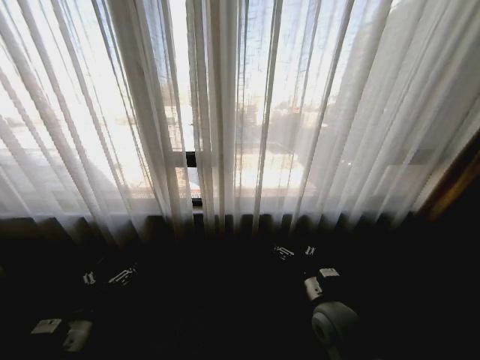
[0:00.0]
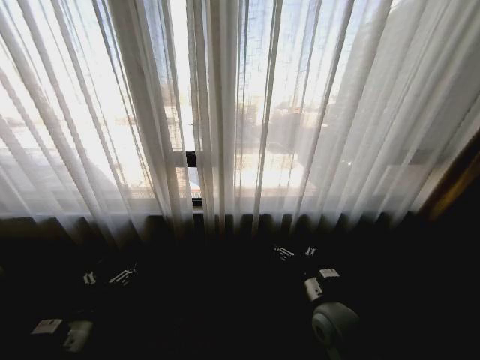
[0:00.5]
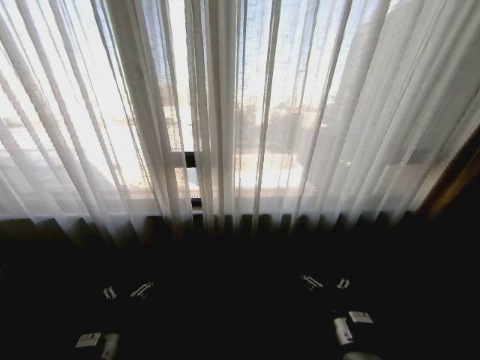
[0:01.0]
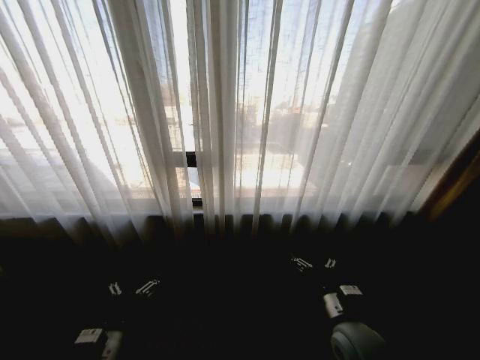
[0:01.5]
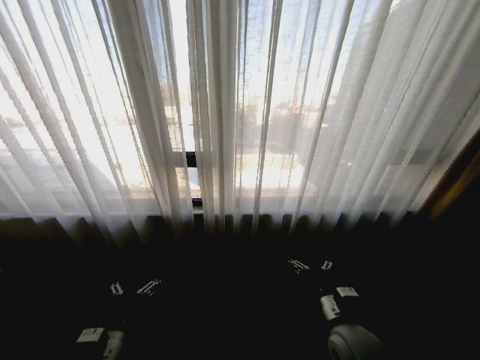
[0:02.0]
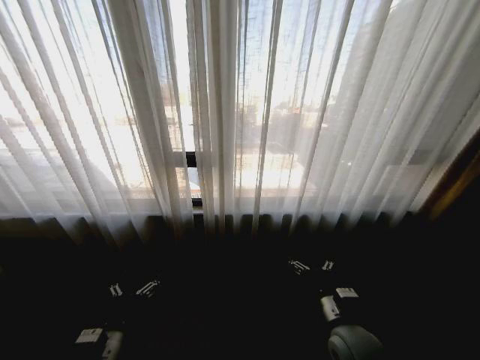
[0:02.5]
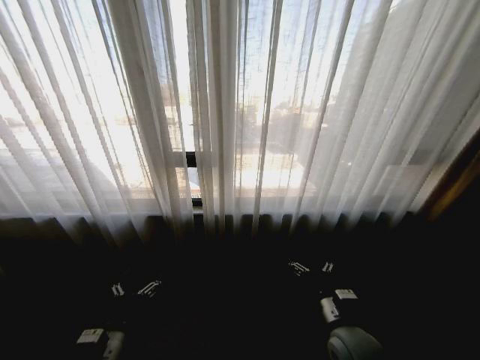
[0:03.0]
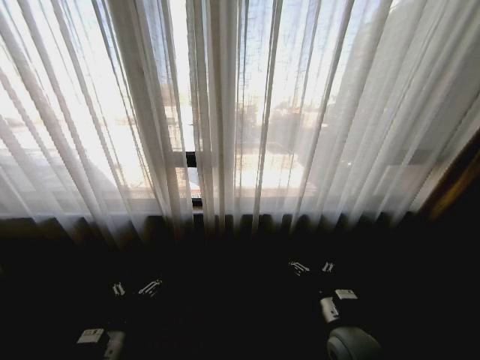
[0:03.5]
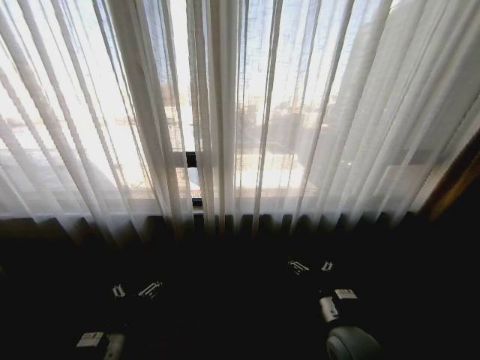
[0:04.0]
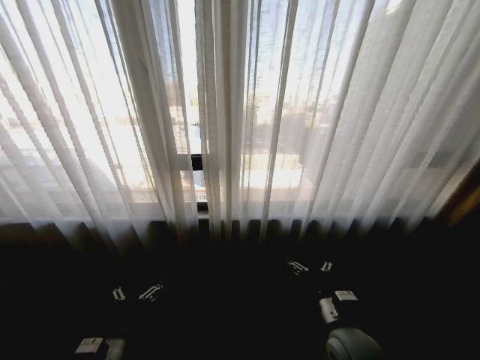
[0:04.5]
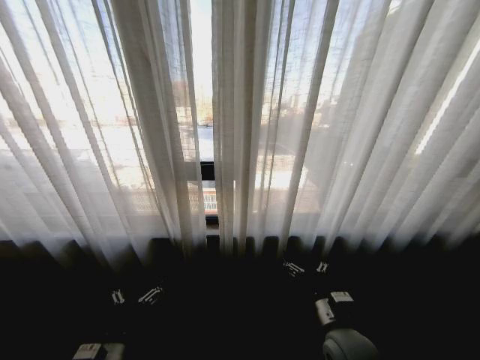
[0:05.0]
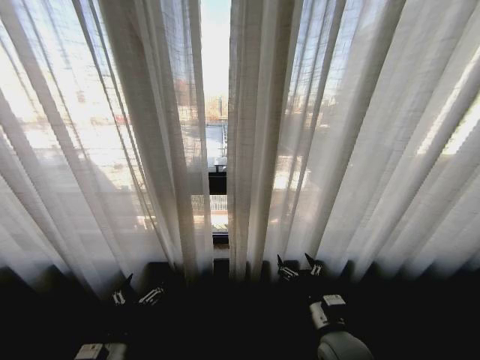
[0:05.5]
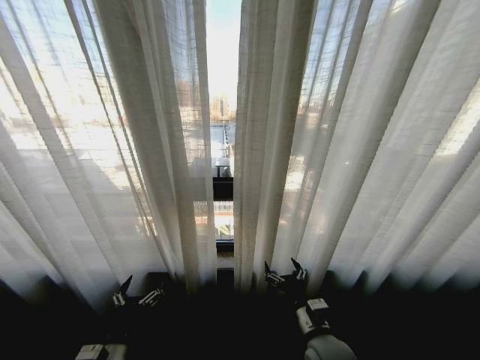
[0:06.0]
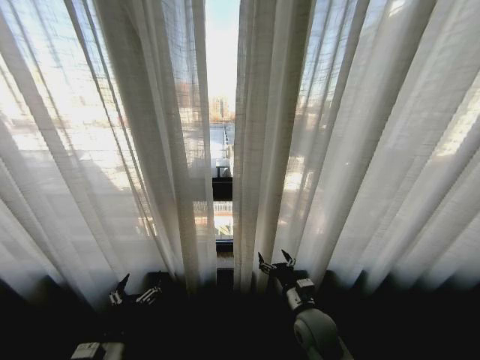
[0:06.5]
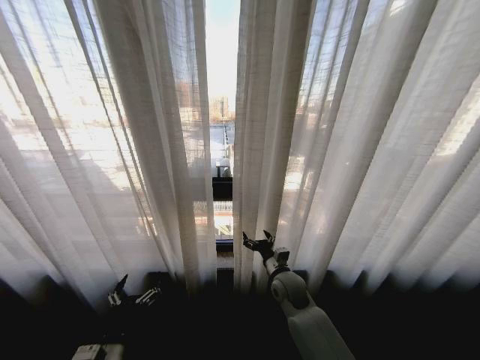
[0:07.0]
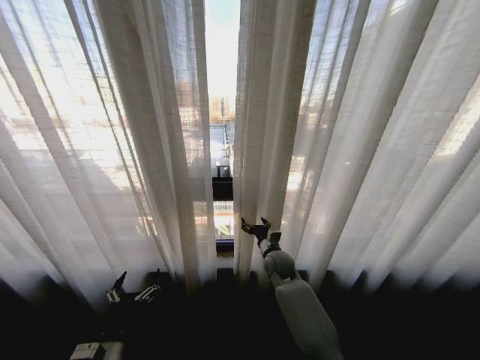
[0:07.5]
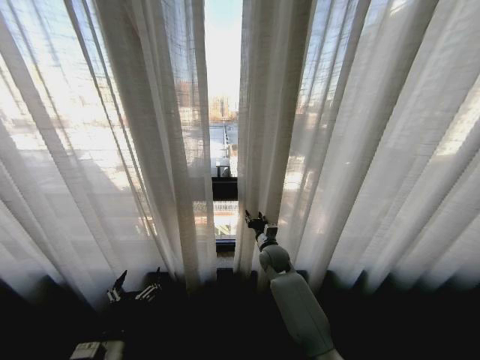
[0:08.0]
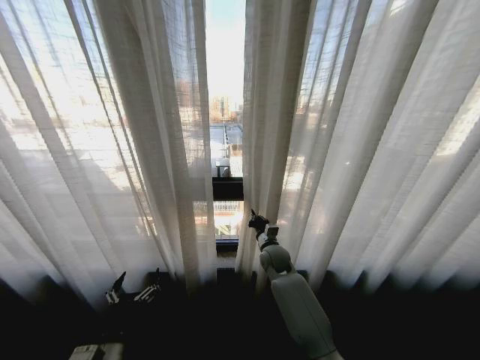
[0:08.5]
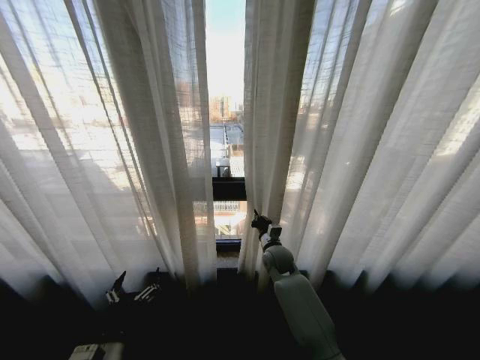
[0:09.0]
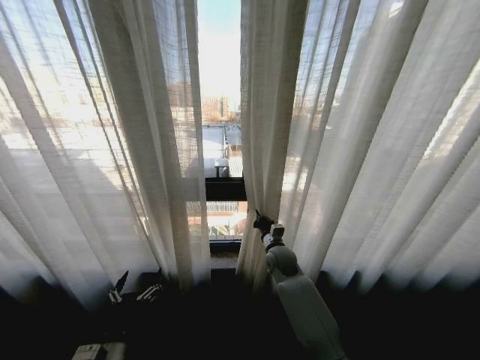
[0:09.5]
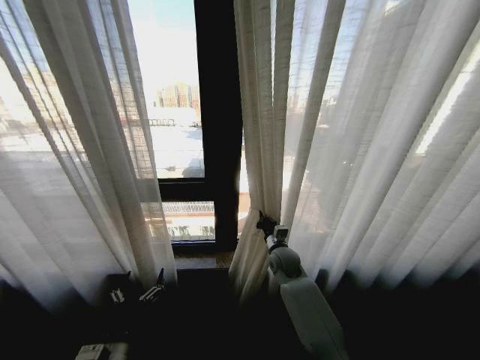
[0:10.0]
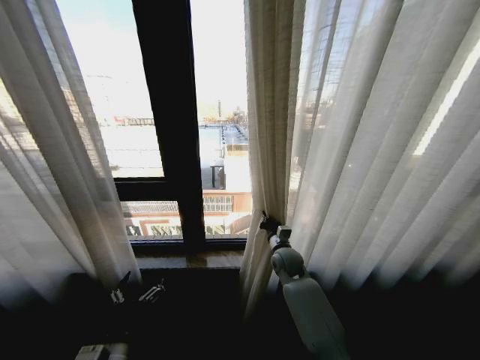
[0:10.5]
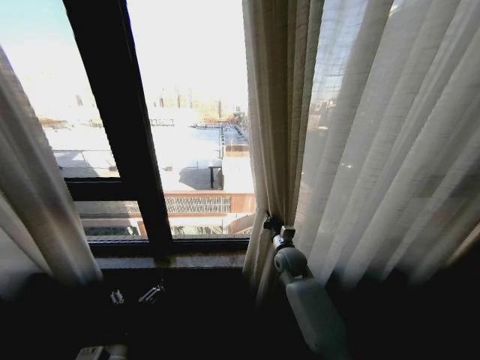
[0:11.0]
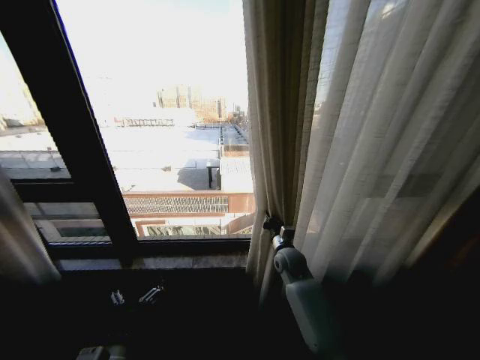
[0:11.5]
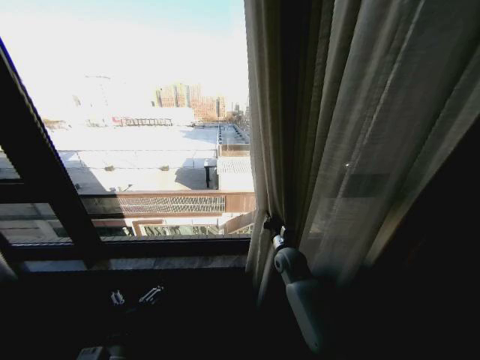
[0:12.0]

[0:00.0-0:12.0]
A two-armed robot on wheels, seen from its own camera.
Task of the whole recording: Open the curtains by pulling them apart, changing their state from closed to fully open.
0:02.0 to 0:04.0: Neither gripper changes place.
0:04.0 to 0:06.0: The right gripper moves roughly 5 cm.
0:06.0 to 0:08.0: The right gripper shifts roughly 25 cm forward, and closes up.
0:08.0 to 0:10.0: The right gripper closes its fingers.

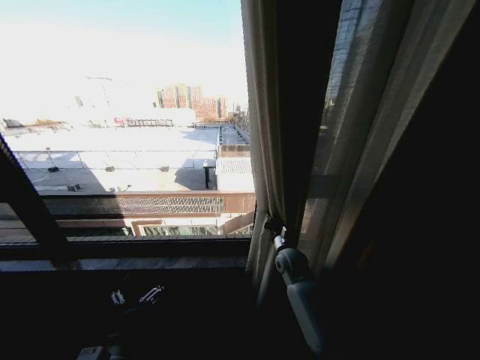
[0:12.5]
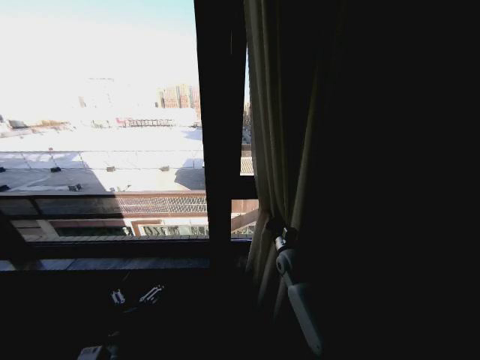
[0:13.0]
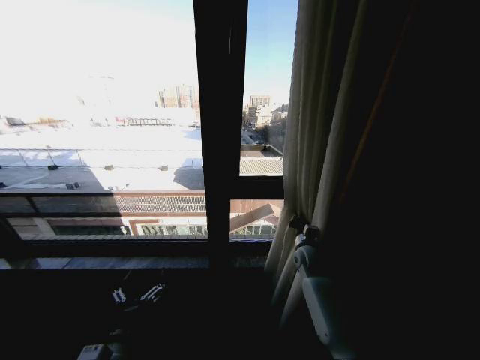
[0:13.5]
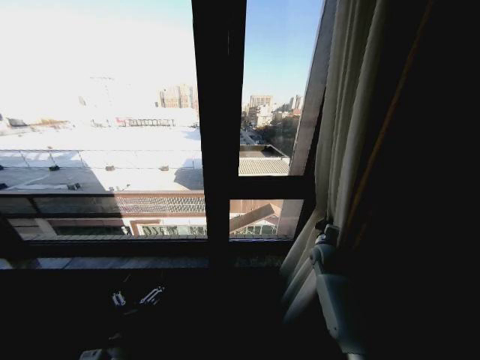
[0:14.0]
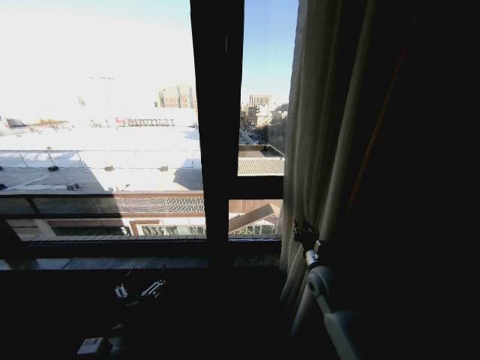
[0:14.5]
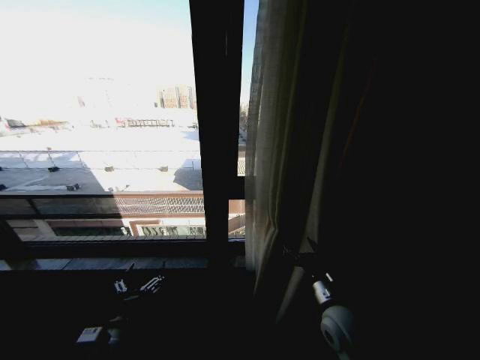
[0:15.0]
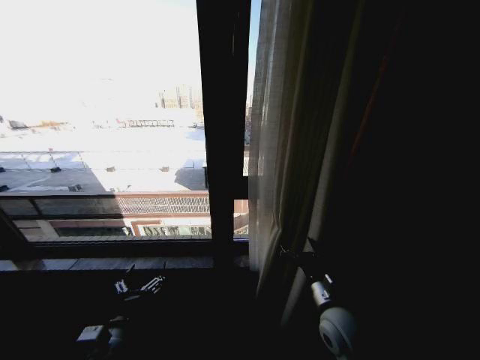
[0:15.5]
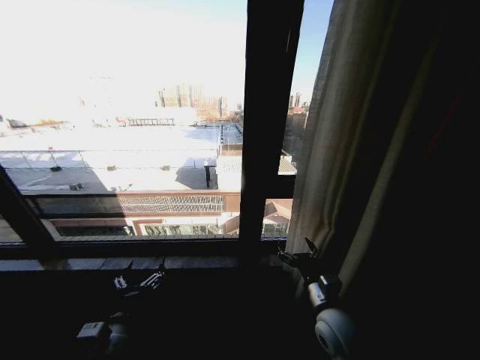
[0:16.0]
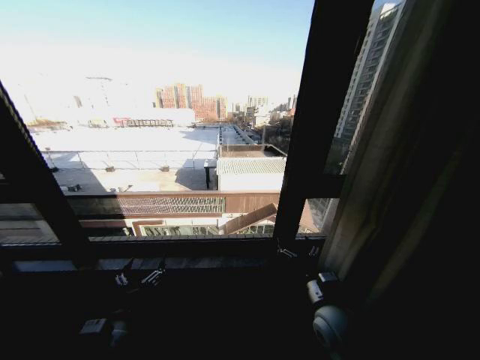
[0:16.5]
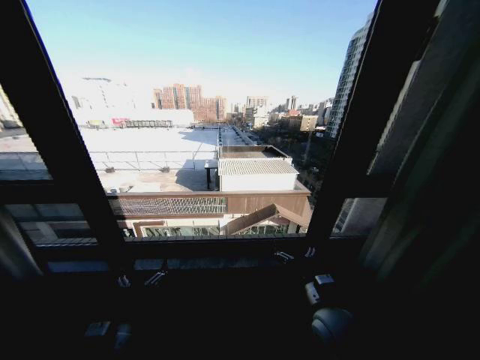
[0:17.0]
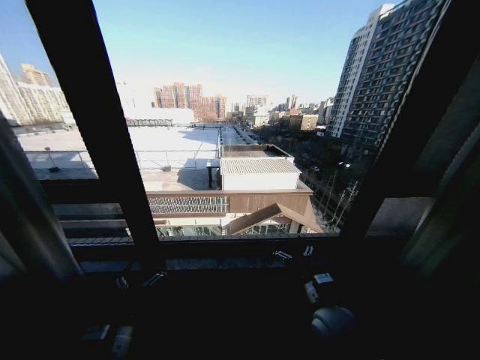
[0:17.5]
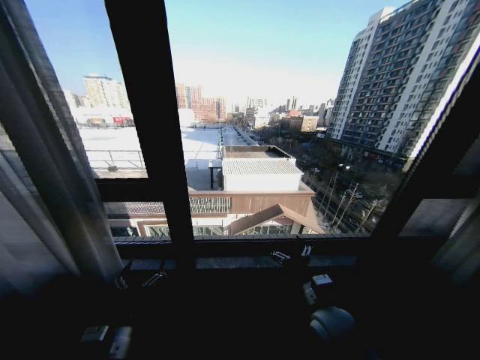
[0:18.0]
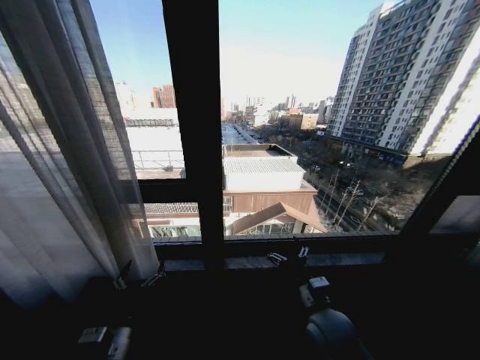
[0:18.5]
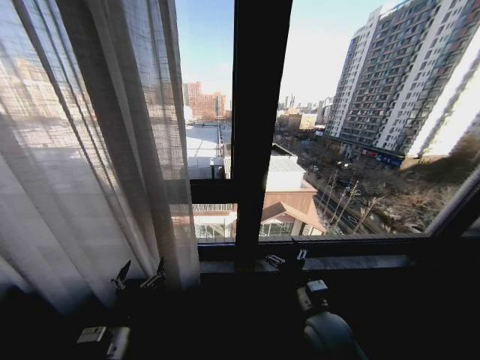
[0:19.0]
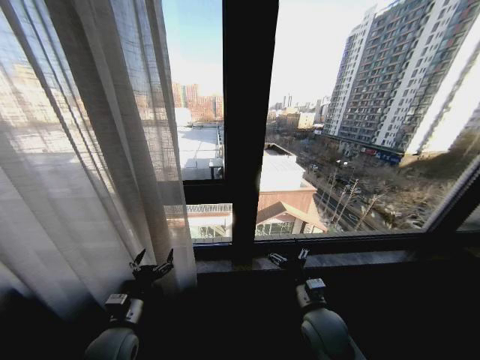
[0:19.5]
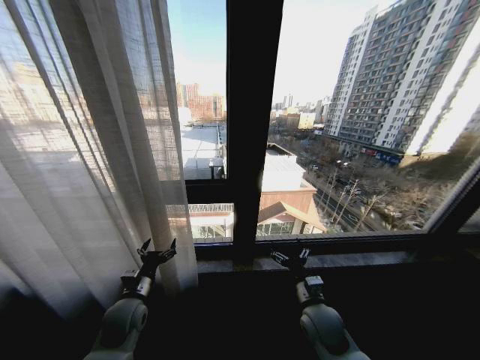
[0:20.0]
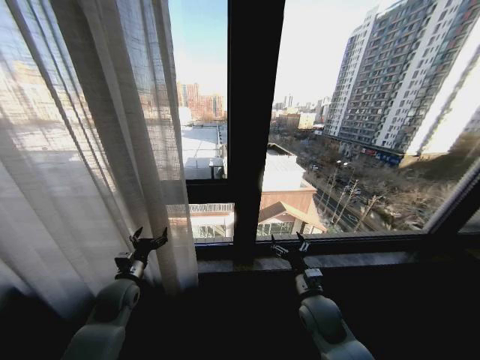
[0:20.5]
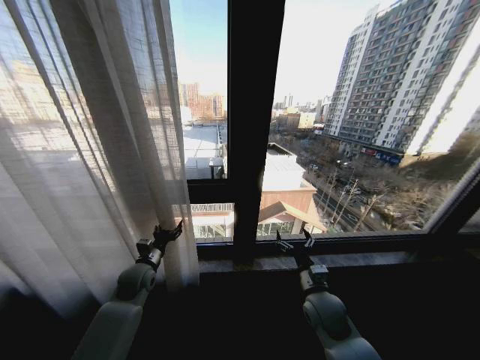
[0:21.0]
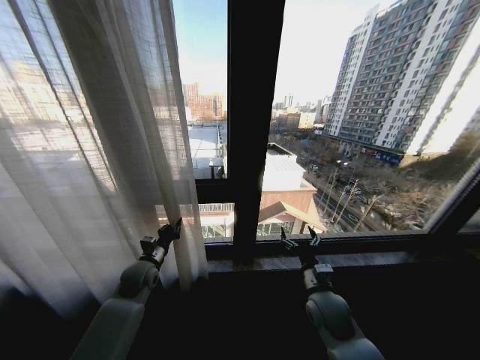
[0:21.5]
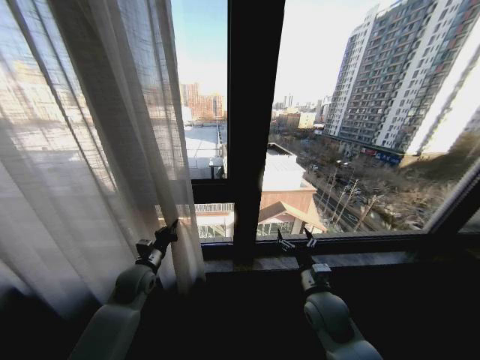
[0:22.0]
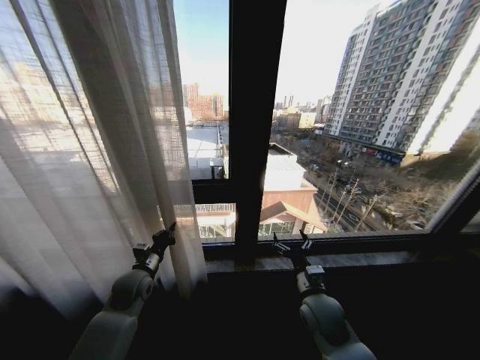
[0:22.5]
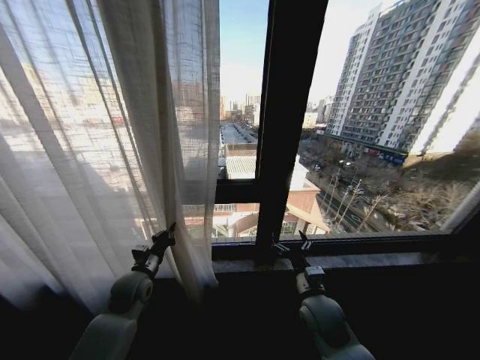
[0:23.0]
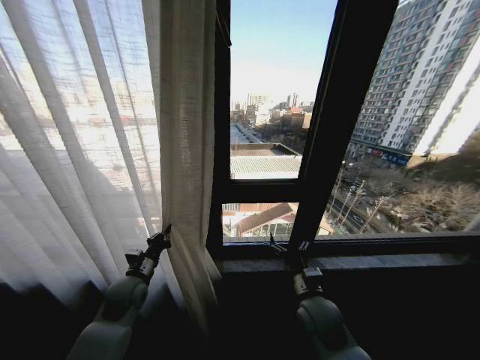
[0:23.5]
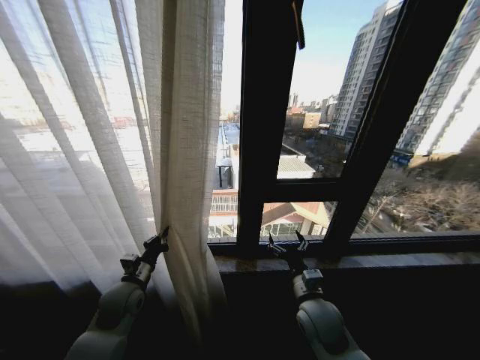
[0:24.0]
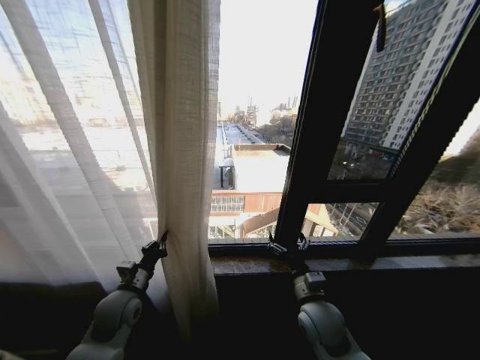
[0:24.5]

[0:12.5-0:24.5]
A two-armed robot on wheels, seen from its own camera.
Task of the whole recording: Open the curtains by pulling them apart, changing their state from closed to fully open.
0:12.5 to 0:14.5: The right gripper moves backward and to the right, about 10 cm.
0:14.5 to 0:16.5: The right gripper shifts roughly 10 cm backward, and opens its fingers.
0:18.5 to 0:20.5: The left gripper heads forward, covering about 20 cm, while the right gripper shifts roughly 5 cm forward.
0:20.5 to 0:22.5: The left gripper closes its fingers.
0:22.5 to 0:24.5: The left gripper travels backward by roughly 5 cm.

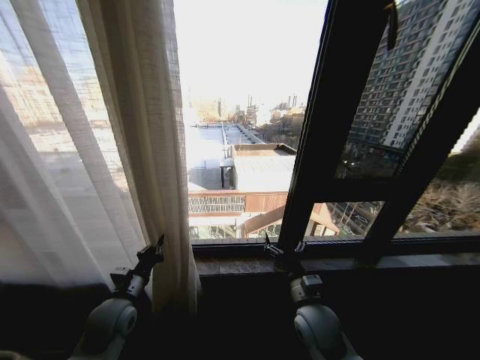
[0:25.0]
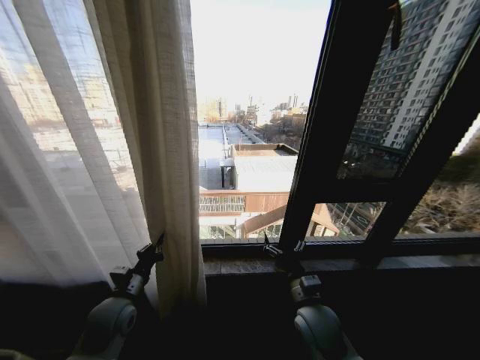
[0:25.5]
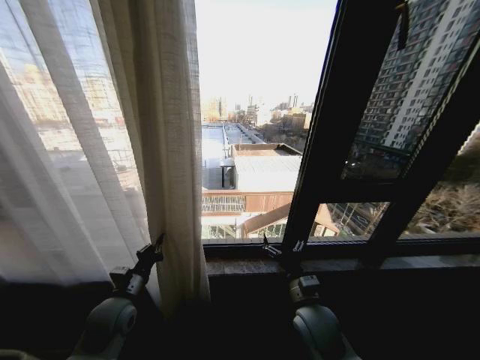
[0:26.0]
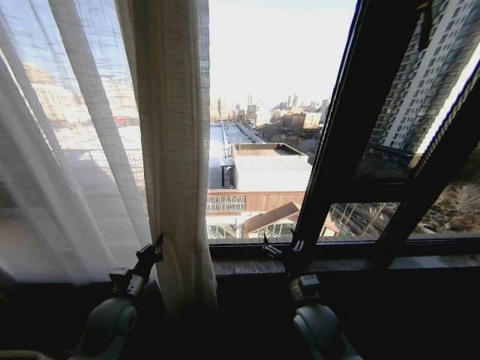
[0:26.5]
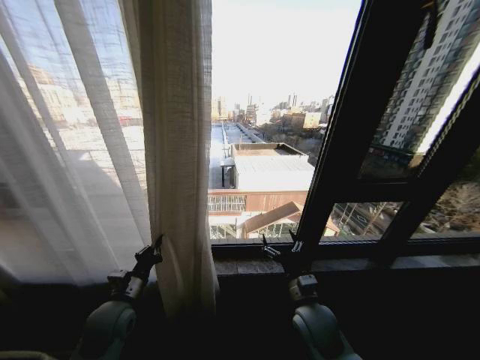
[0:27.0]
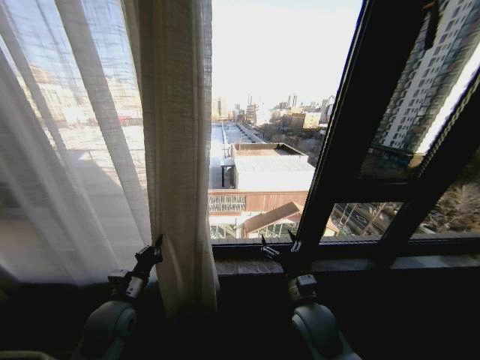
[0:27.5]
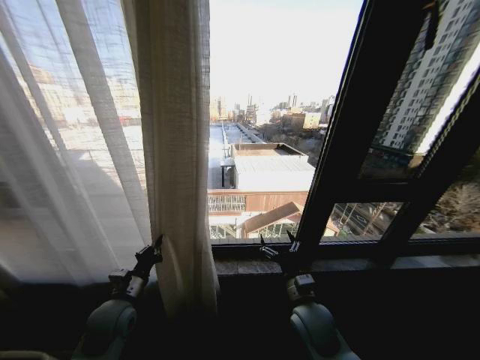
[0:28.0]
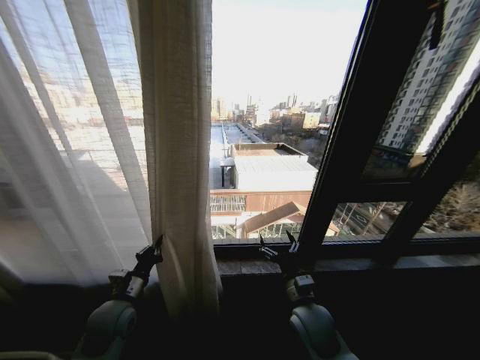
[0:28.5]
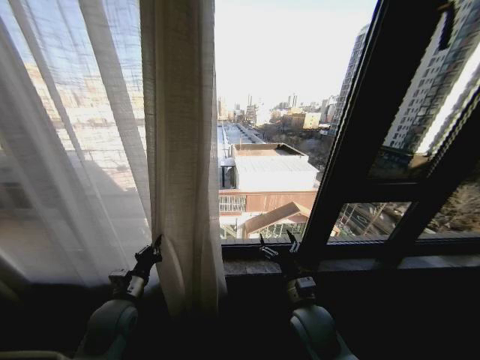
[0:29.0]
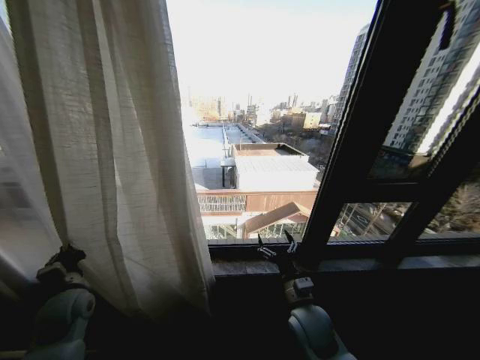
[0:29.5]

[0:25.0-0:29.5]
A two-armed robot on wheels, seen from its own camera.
Task of the whole recording: Open the curtains by pulling them apart, changing their state from closed to fully open.
0:27.0 to 0:29.5: The left gripper moves to the left, approximately 10 cm.
